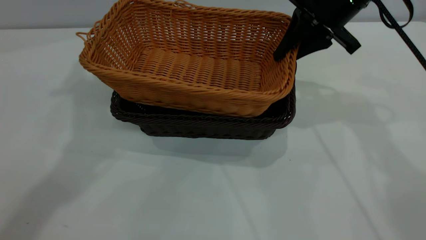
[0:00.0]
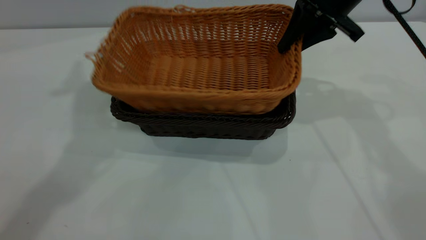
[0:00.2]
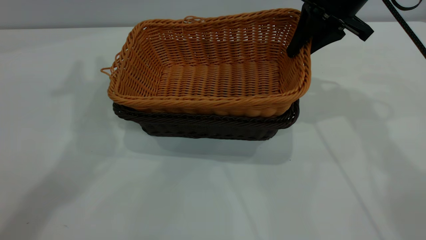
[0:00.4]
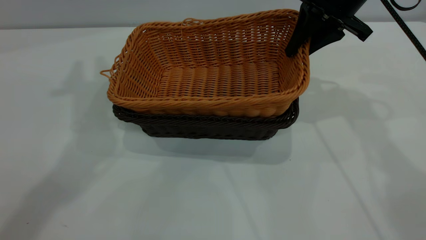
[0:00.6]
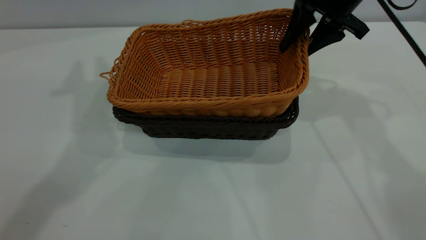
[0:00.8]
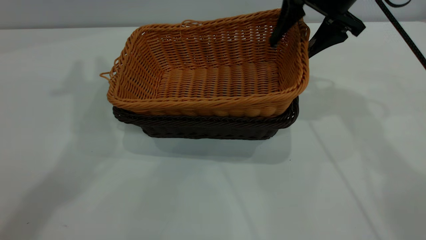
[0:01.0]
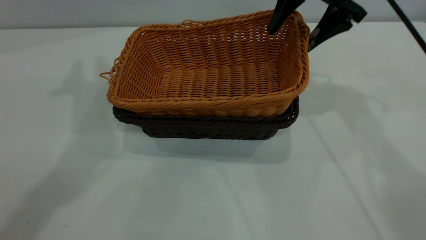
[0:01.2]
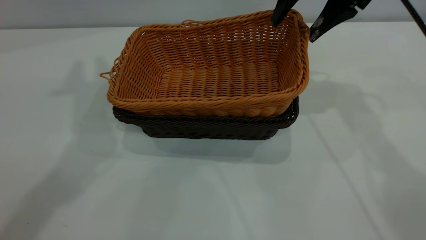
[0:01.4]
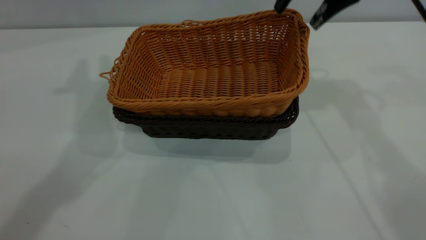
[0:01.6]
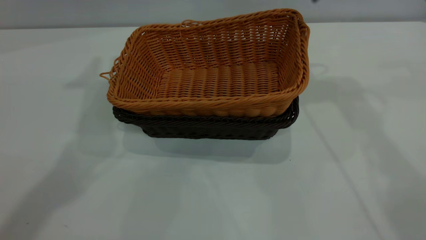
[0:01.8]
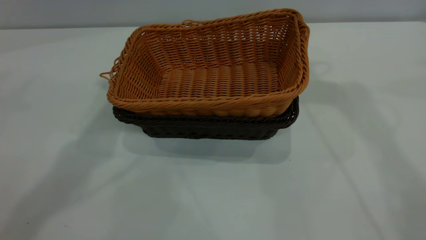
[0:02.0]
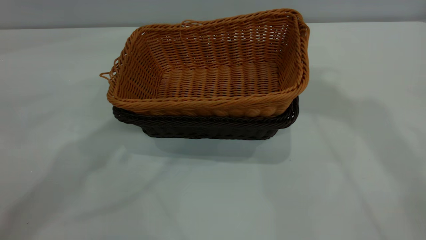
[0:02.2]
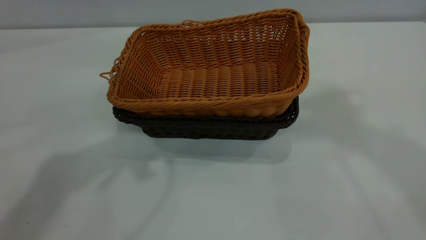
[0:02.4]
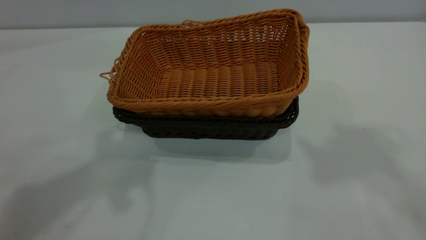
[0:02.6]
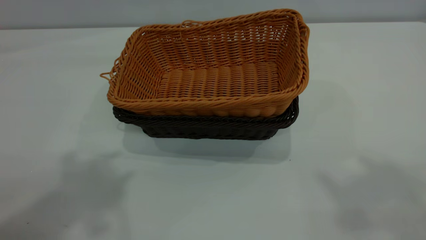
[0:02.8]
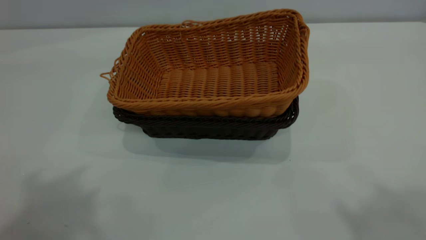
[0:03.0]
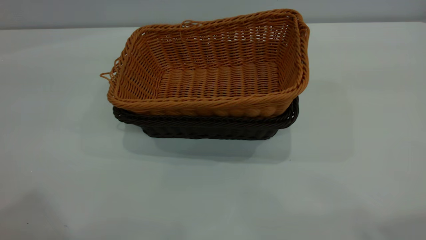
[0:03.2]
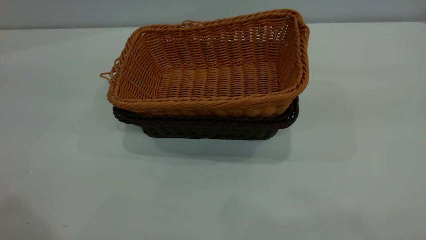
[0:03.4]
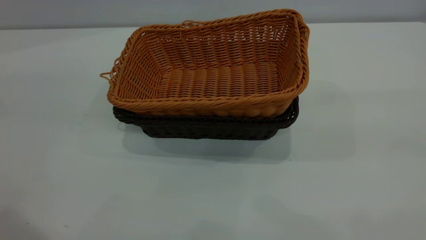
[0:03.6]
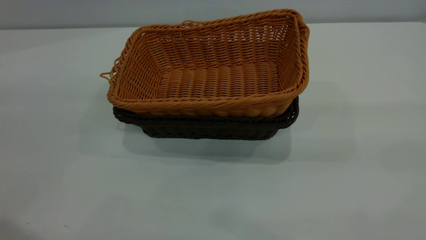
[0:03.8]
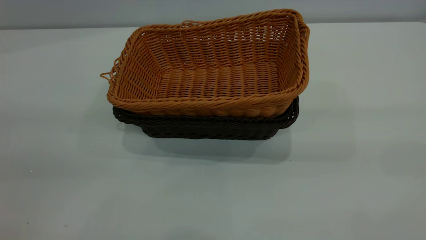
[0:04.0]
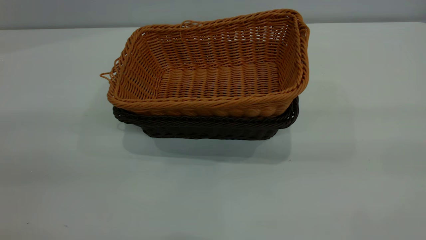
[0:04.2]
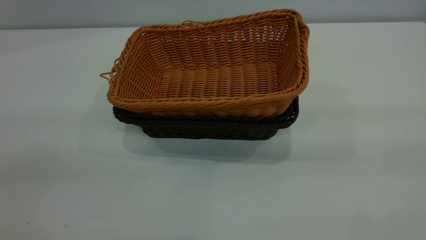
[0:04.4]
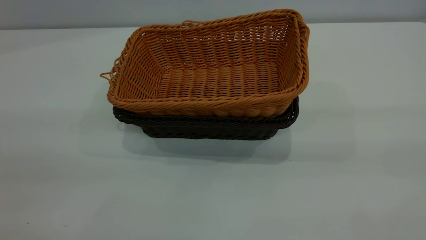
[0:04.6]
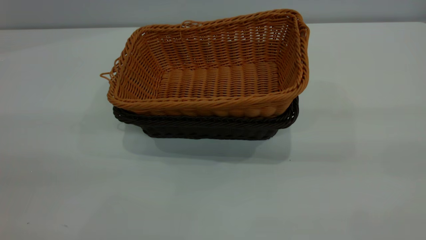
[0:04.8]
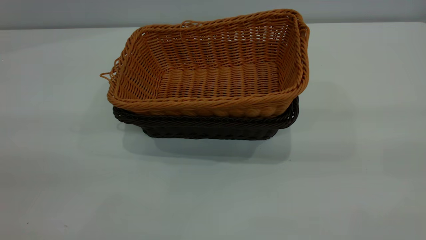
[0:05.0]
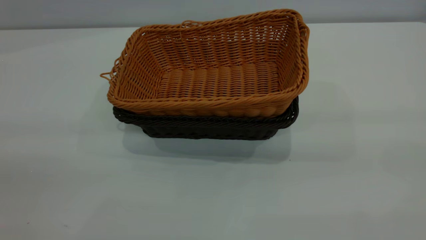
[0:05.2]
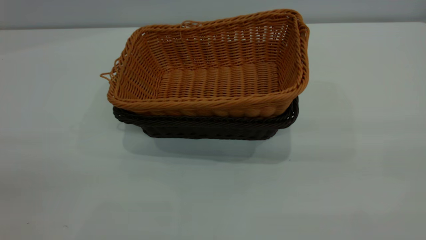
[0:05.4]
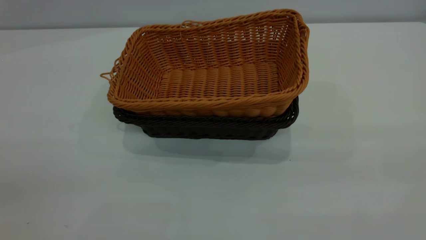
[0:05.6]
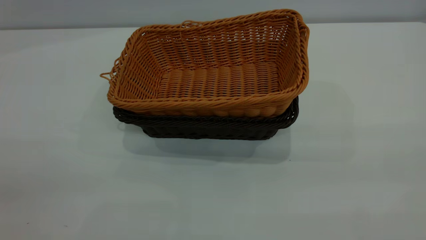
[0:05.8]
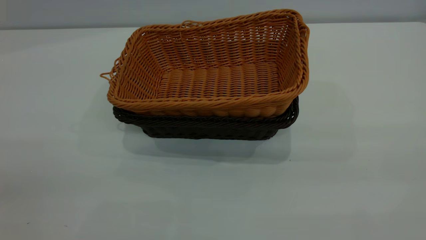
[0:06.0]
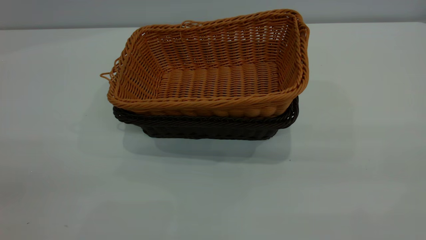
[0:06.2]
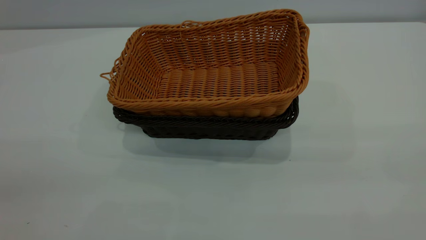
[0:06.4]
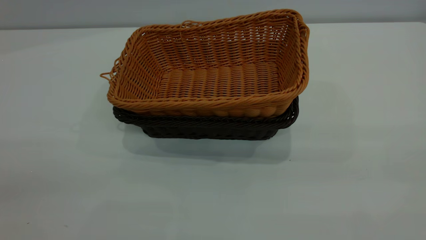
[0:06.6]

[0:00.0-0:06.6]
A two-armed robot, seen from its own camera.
Task of the whole recording: the left gripper grasp the black basket and place it in the center of the table, the right gripper grasp the brown basket and place it inside the black one.
0:00.0 to 0:01.6: The right gripper heads upward, covering about 5 cm, and opens its fingers.
0:01.6 to 0:03.2: The right gripper shifts approximately 40 cm backward and upward.

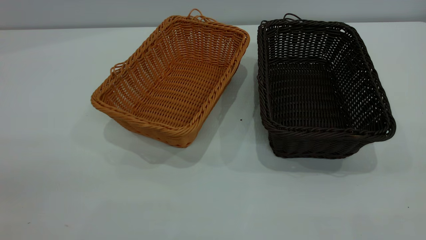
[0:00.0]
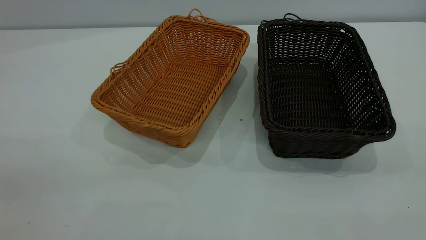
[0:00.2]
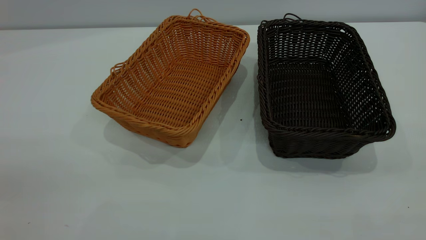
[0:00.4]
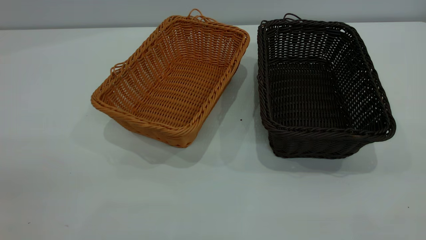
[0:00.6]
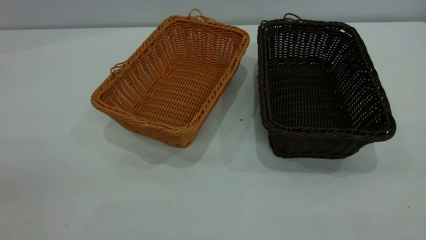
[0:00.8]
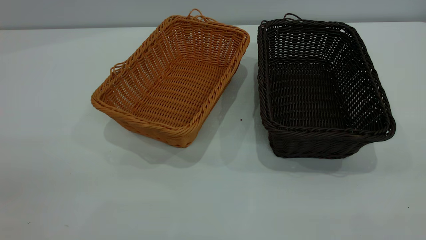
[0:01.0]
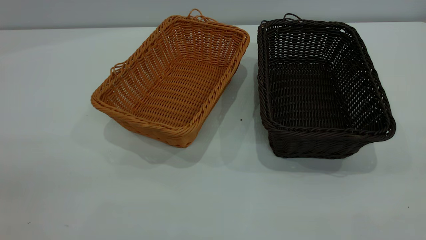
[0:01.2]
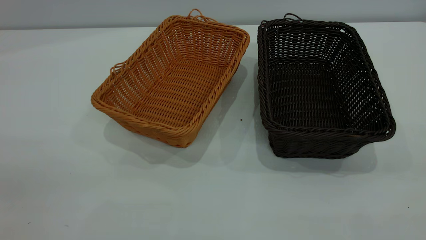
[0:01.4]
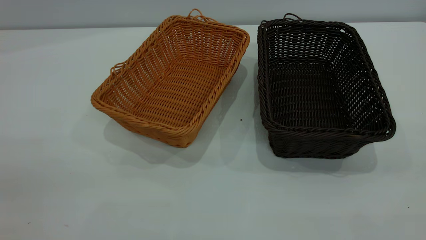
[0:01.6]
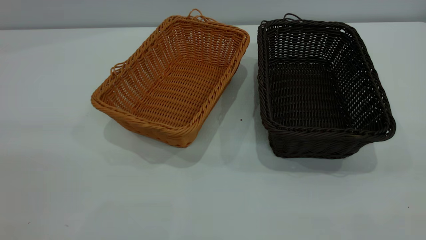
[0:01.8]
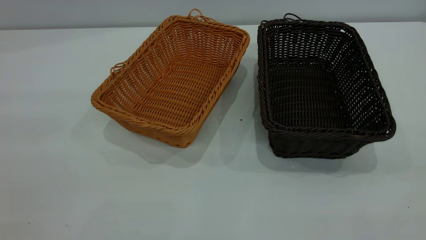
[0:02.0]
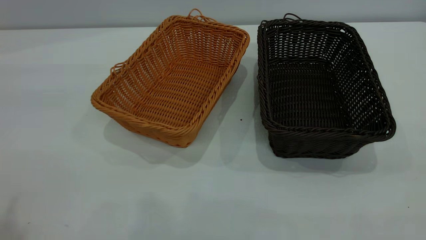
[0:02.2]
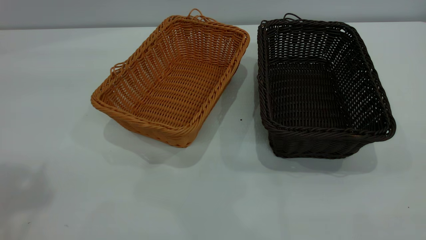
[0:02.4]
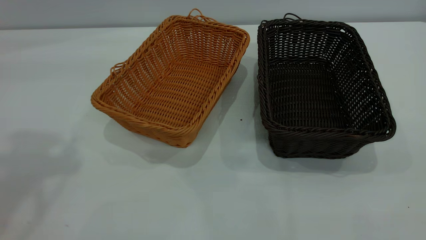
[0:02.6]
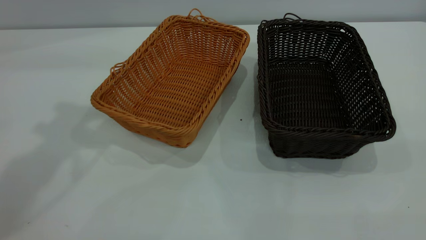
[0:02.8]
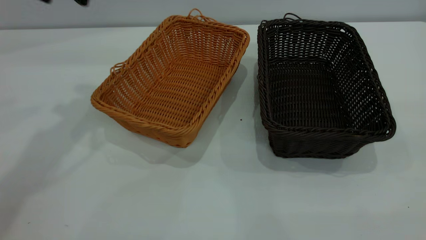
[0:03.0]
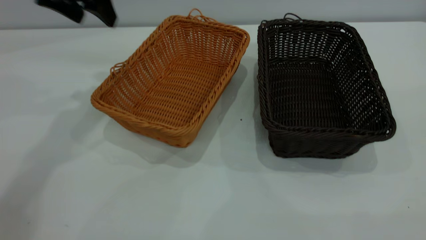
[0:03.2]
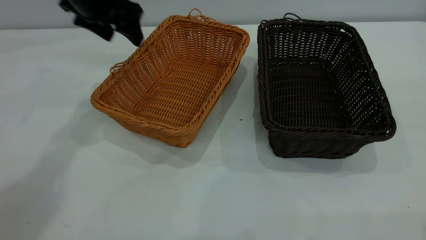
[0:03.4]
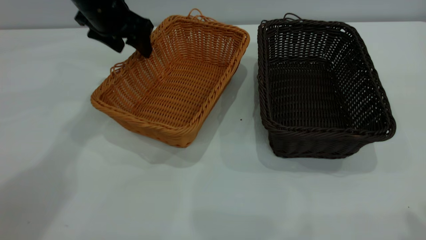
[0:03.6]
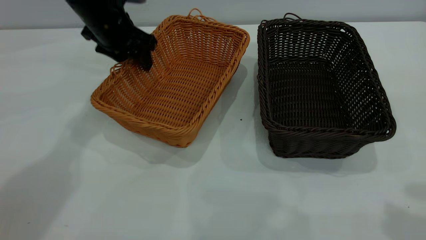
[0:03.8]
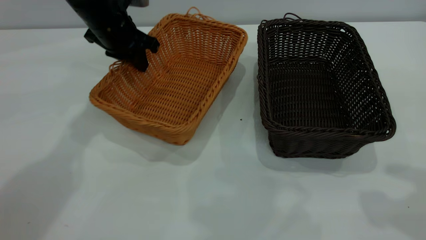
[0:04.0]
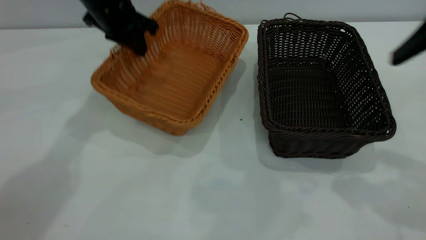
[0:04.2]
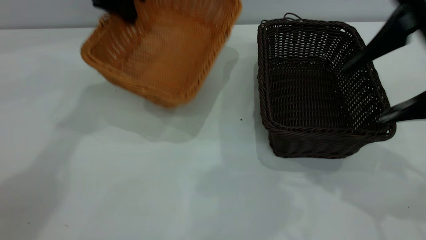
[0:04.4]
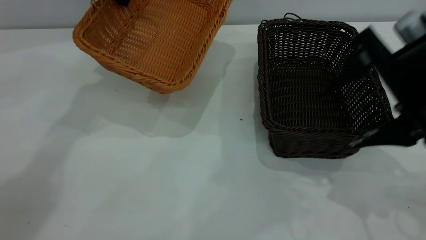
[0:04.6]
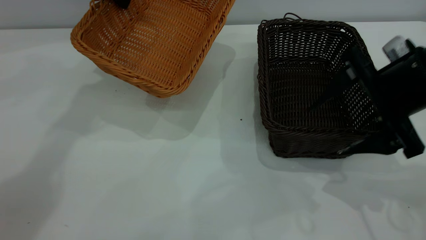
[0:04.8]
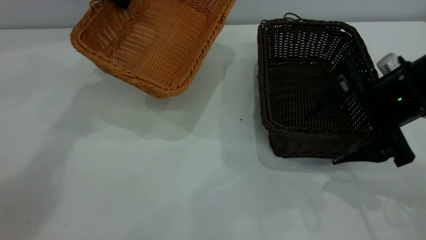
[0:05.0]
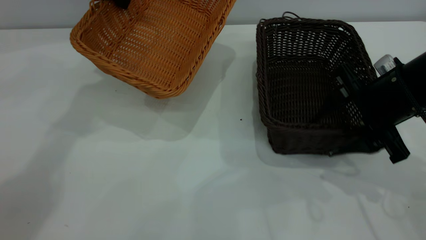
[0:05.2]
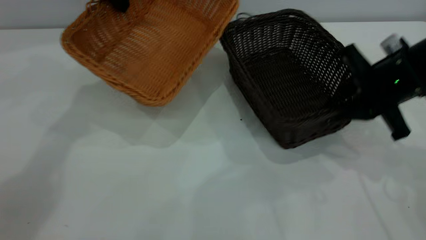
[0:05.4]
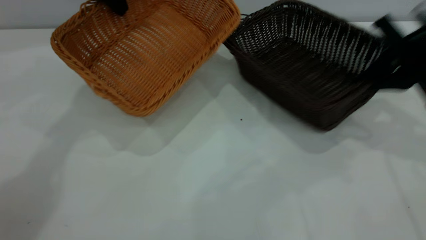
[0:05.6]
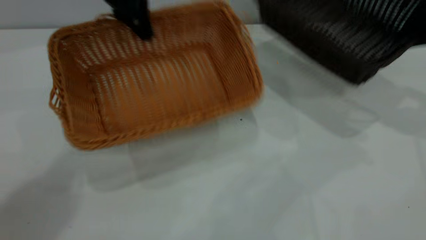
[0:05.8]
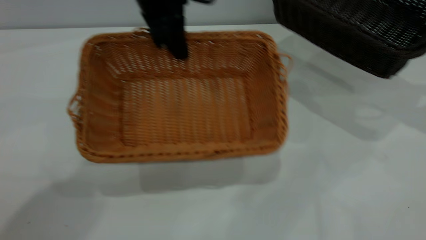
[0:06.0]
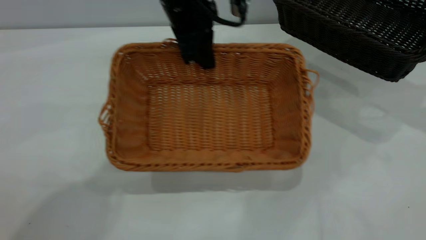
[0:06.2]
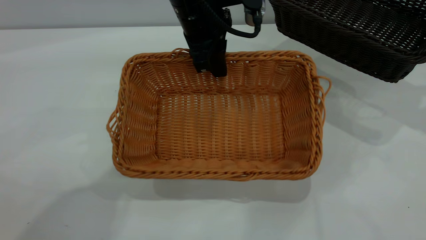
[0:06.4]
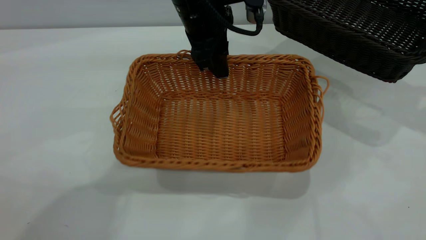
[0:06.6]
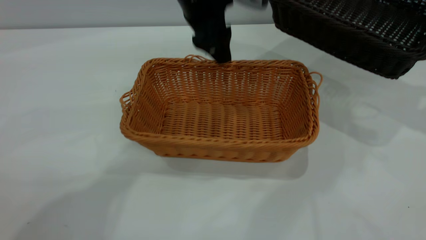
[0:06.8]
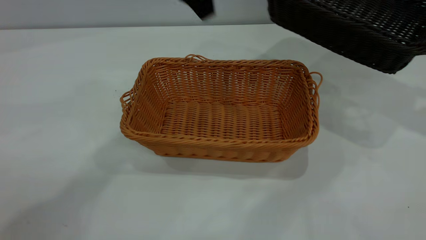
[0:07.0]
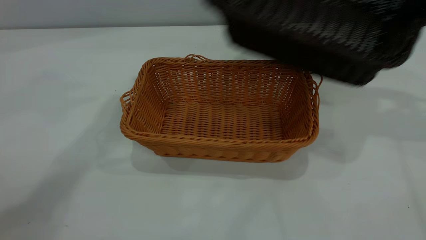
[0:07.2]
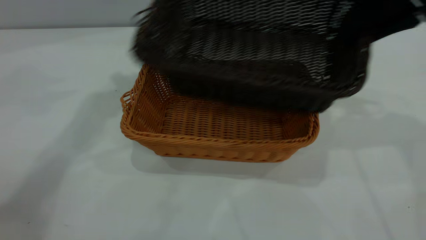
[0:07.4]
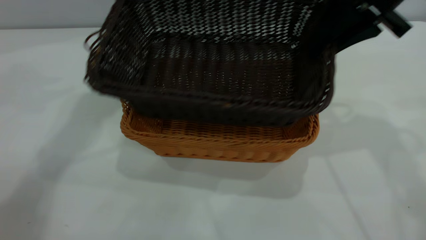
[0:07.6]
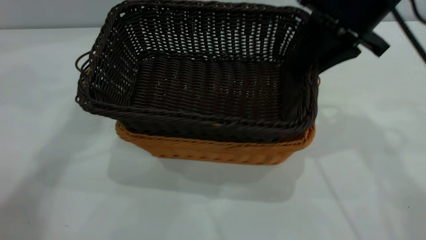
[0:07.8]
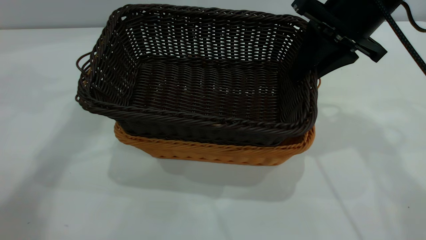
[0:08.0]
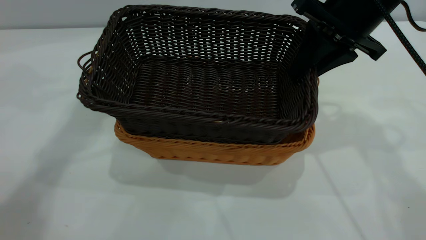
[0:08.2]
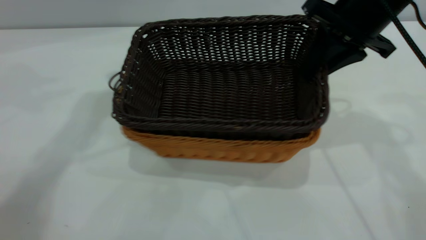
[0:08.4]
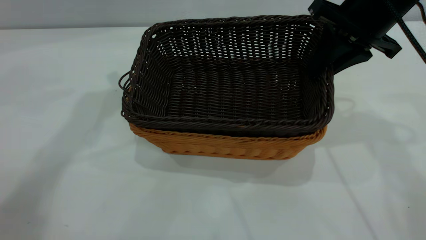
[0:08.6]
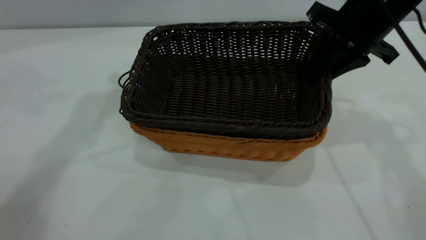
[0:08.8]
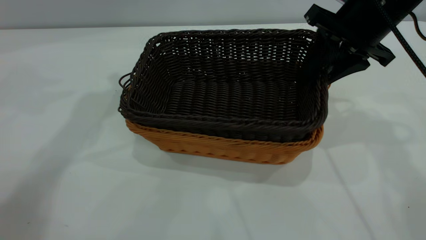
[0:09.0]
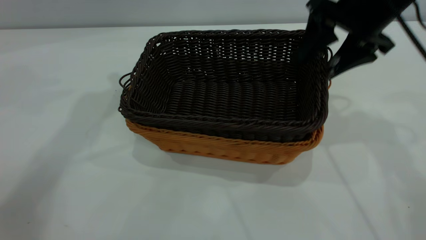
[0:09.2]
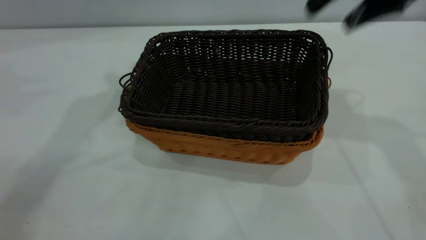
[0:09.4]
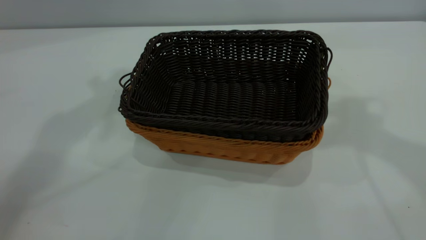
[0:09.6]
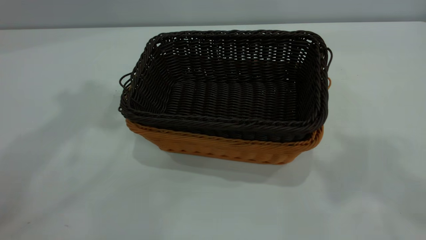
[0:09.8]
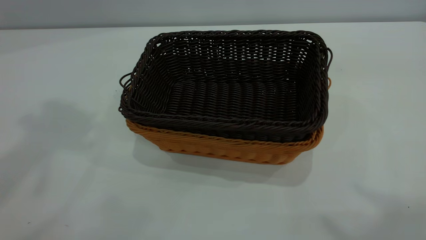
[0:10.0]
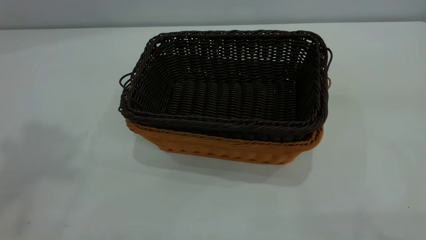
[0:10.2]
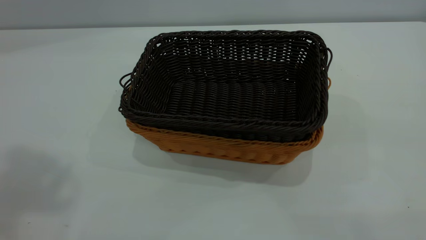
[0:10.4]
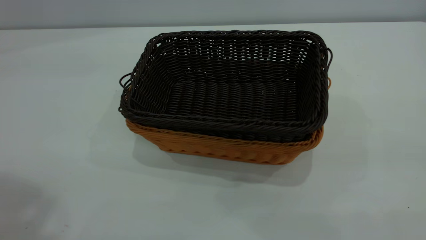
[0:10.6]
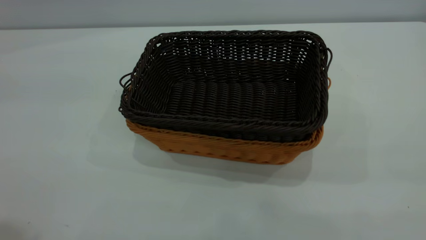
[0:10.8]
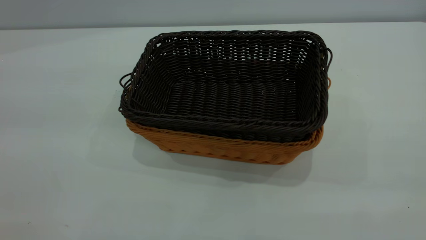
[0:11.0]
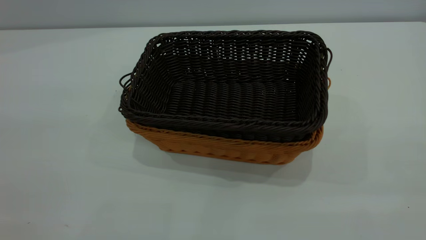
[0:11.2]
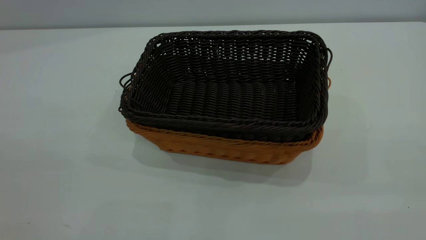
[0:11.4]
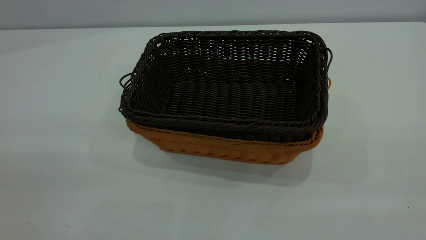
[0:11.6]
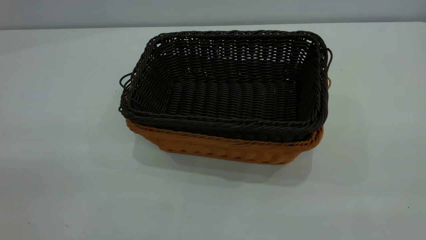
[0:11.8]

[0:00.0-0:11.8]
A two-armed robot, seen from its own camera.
Task of the whole recording: the left gripper grasp the brown basket and place it in the center of the table, the right gripper grasp the black basket and place it inside the brown one.
Step, 0:00.0 to 0:04.4: Pick up the light basket with the right gripper.
Step, 0:04.6 to 0:06.8: Place the light-colored basket in the center.
Step, 0:07.0 to 0:09.2: Place the dark basket on top of the light basket.
0:00.0 to 0:01.4: Both grippers stay about where they are.
0:03.0 to 0:04.4: The left gripper travels forward by about 10 cm, moves some 15 cm downward and comes back, and closes up. Meanwhile the right gripper shifts about 25 cm forward and downward.
0:04.4 to 0:06.0: The right gripper heads to the right and forward, covering about 20 cm, and closes its fingers, while the left gripper travels to the right and backward by some 15 cm.
0:06.0 to 0:07.4: The right gripper goes about 15 cm to the left, while the left gripper goes approximately 15 cm upward and to the left, and opens its fingers.
0:07.4 to 0:08.8: The right gripper travels downward by some 5 cm.
0:08.8 to 0:10.4: The right gripper moves backward and upward, approximately 40 cm, and opens its fingers; the left gripper goes roughly 35 cm backward, upward and to the left.
